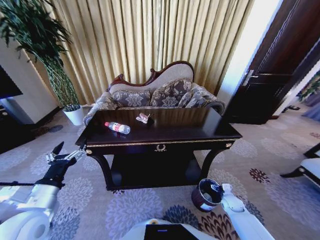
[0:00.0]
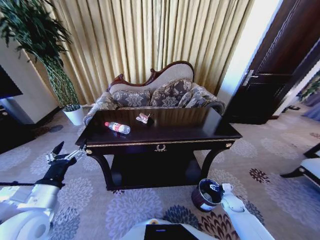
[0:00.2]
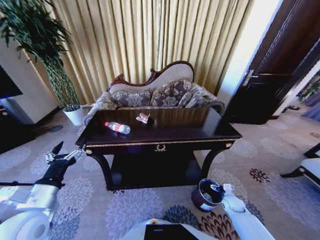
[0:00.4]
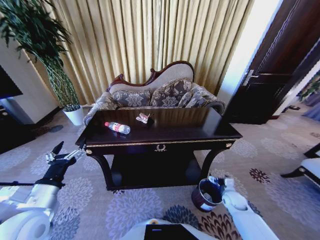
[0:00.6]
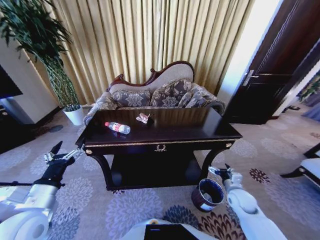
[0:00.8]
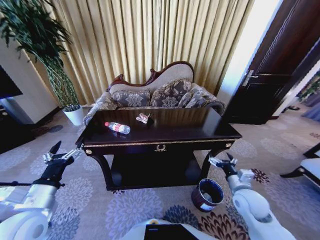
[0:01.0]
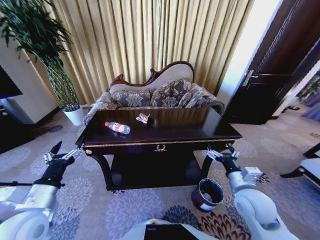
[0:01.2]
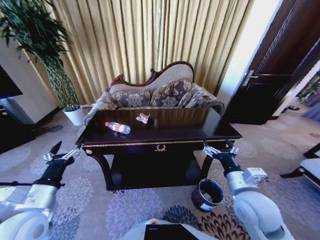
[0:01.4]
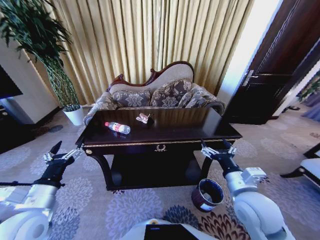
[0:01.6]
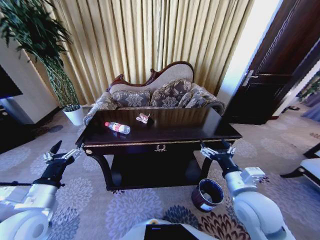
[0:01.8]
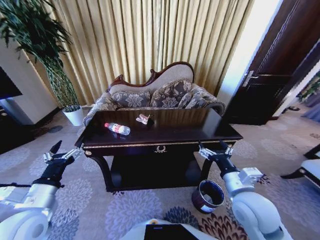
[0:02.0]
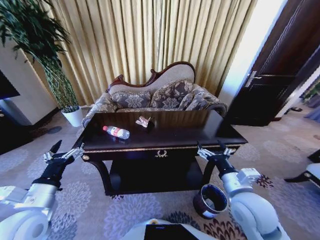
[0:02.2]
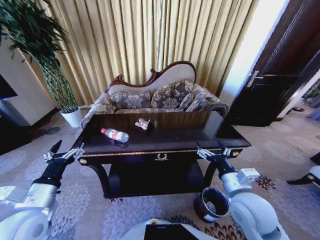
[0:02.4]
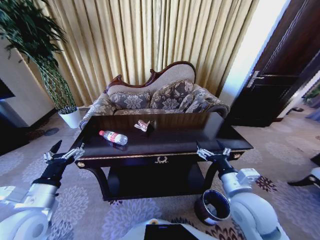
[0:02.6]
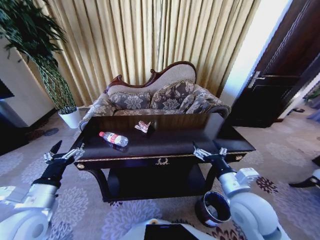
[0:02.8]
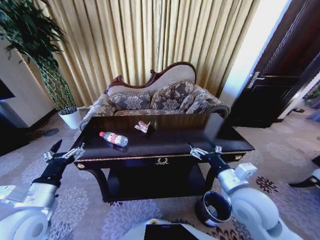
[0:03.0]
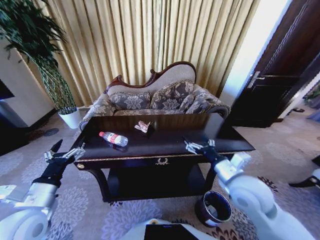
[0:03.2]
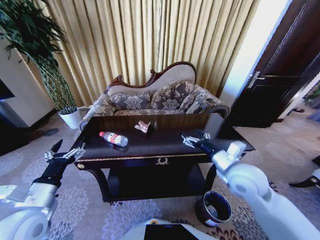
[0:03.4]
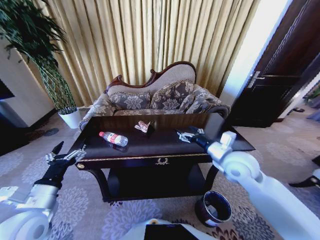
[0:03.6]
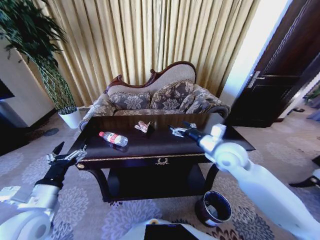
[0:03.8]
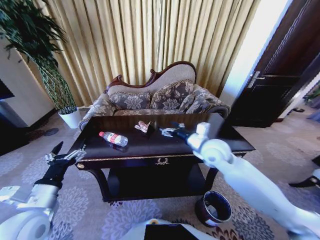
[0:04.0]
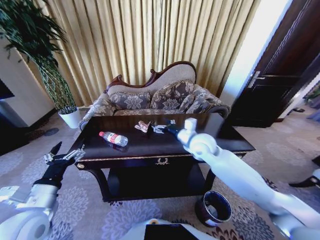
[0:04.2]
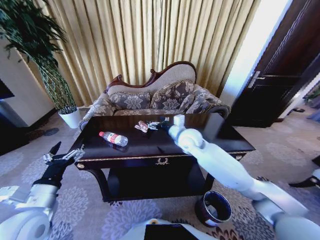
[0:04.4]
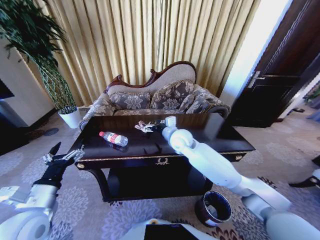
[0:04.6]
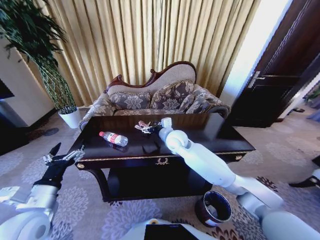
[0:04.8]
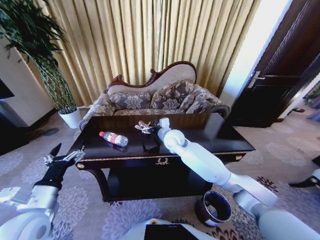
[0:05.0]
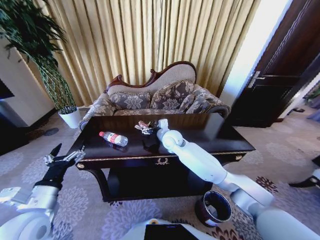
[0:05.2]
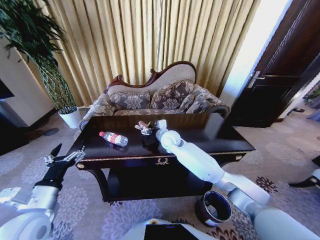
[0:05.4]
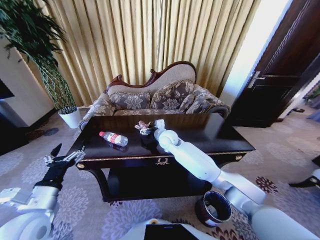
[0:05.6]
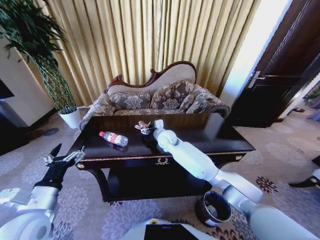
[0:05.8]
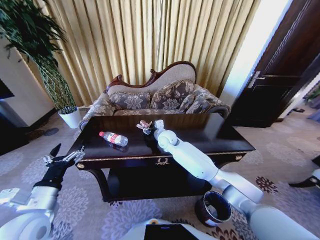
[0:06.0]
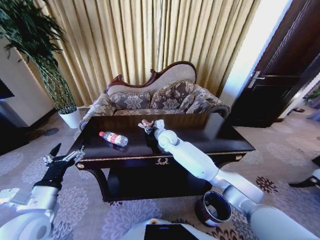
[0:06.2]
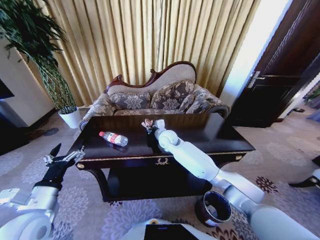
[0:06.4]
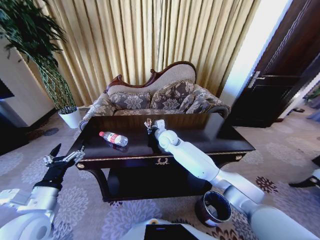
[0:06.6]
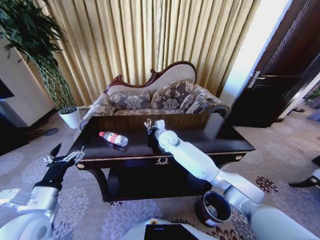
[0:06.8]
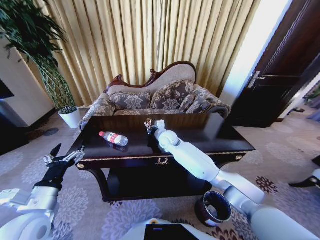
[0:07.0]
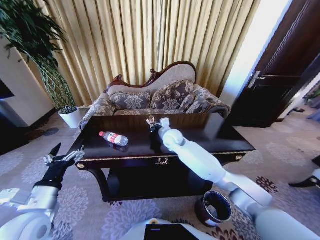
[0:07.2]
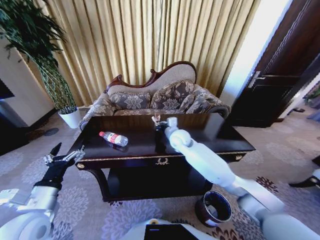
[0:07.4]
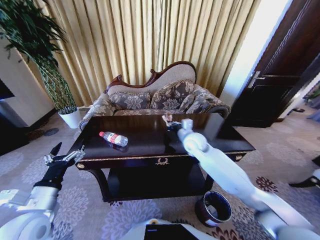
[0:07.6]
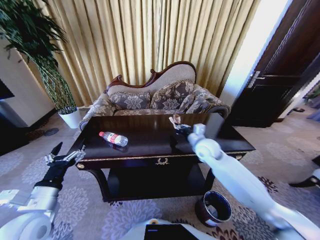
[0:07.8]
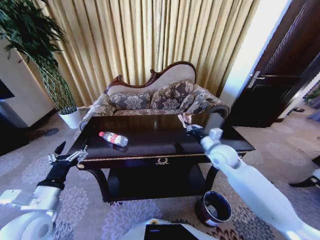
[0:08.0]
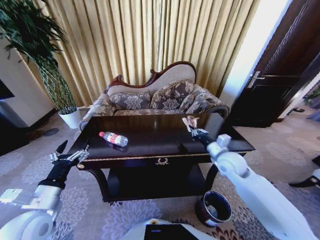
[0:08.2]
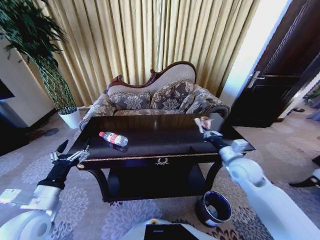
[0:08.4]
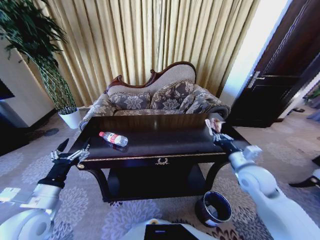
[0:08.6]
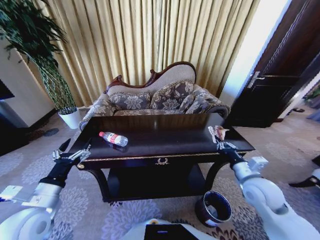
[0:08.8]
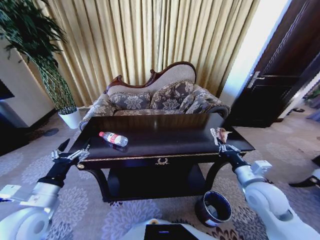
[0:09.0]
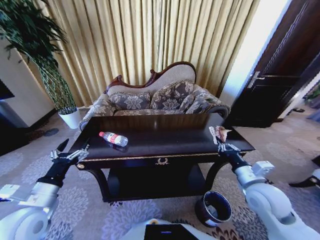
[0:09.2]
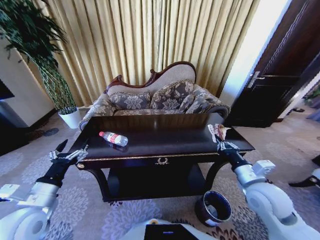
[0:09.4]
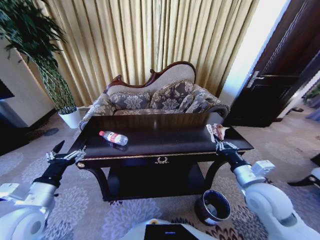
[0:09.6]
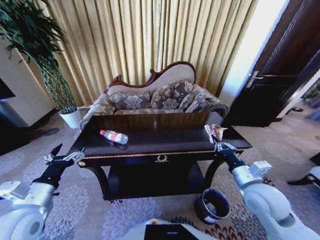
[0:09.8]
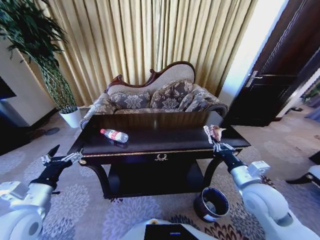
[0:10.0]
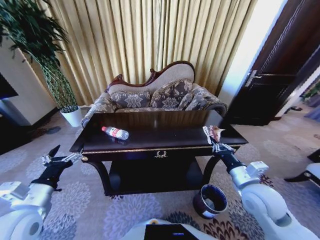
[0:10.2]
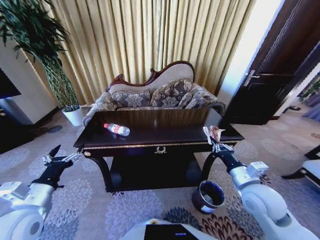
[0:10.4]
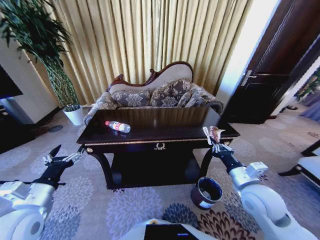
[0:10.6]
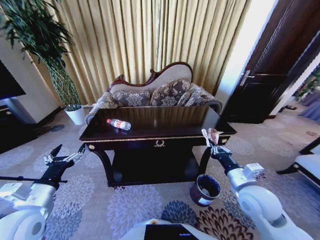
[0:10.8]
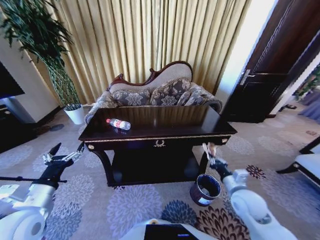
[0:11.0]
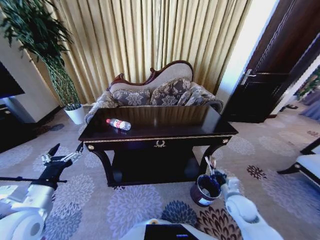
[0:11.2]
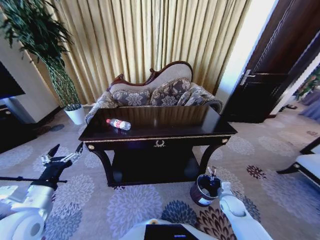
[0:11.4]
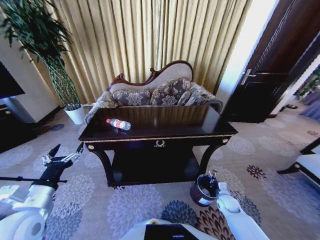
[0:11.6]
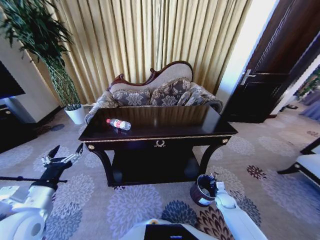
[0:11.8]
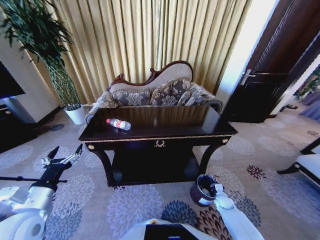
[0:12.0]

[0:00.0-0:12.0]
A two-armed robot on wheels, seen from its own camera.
Task of the whole recording: Move to the front of the table and place the trash on the table into the trash bin.
0:00.0 to 0:01.6: The right gripper shifts roughly 35 cm upward and to the left.
0:03.0 to 0:04.4: The right gripper heads forward and to the left, covering approximately 25 cm.
0:04.4 to 0:06.0: The right gripper is displaced to the left, downward and forward by approximately 15 cm.
0:06.0 to 0:07.6: The right gripper goes about 15 cm to the right and backward, and closes its fingers.
0:07.6 to 0:09.0: The right gripper moves backward and to the right, about 25 cm.
0:10.4 to 0:12.0: The right gripper travels downward by approximately 35 cm.

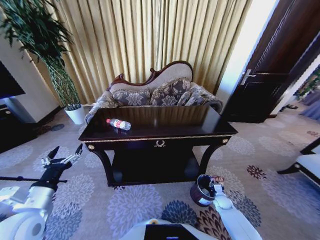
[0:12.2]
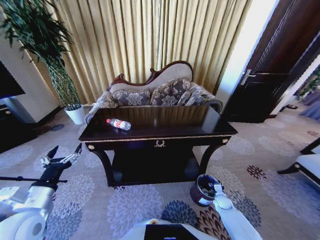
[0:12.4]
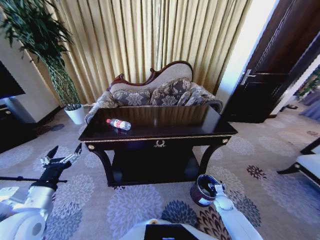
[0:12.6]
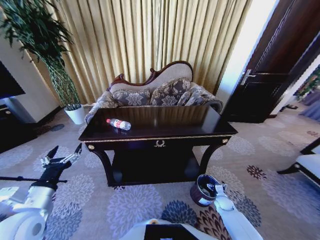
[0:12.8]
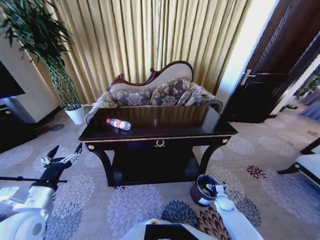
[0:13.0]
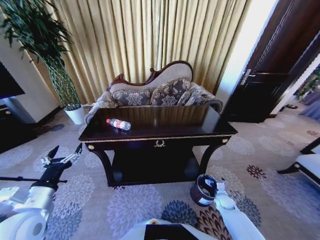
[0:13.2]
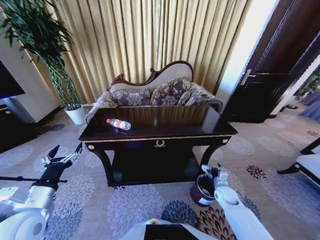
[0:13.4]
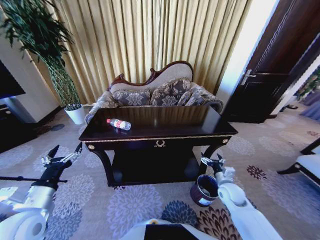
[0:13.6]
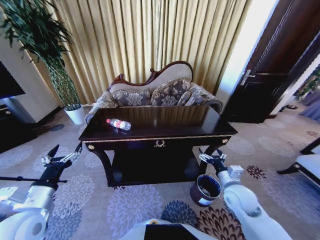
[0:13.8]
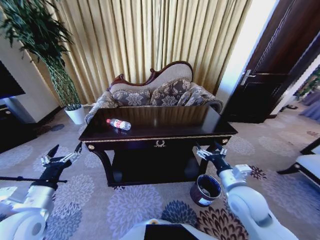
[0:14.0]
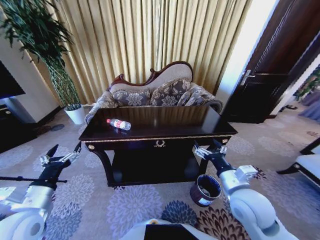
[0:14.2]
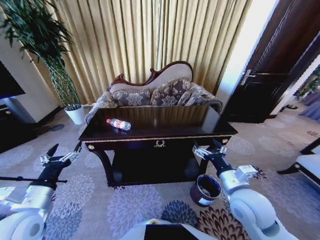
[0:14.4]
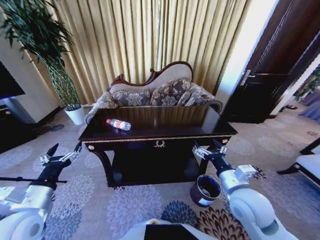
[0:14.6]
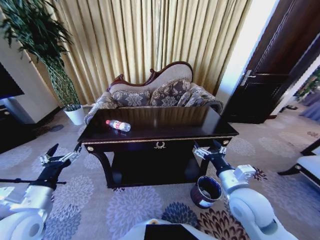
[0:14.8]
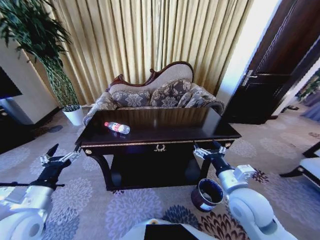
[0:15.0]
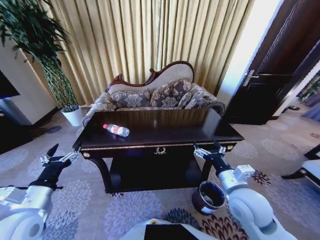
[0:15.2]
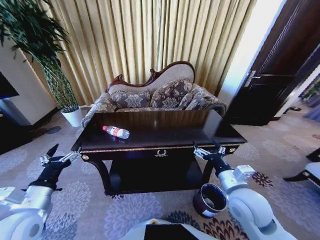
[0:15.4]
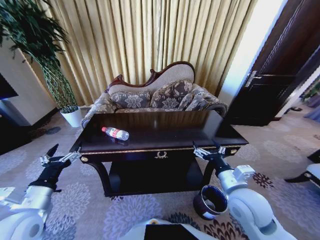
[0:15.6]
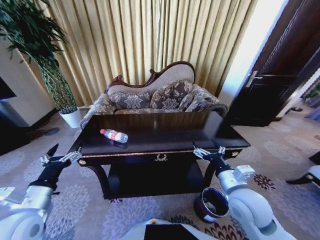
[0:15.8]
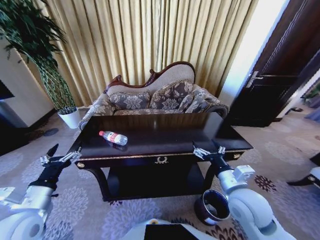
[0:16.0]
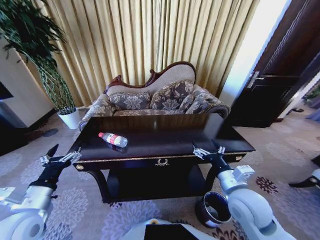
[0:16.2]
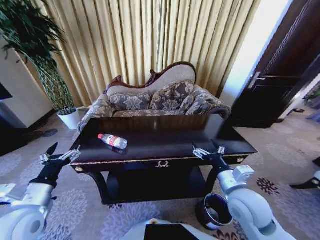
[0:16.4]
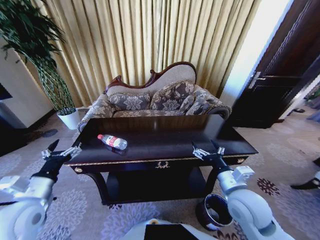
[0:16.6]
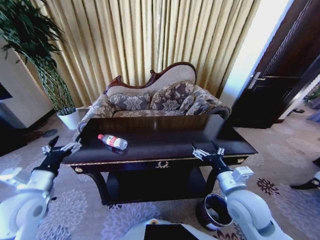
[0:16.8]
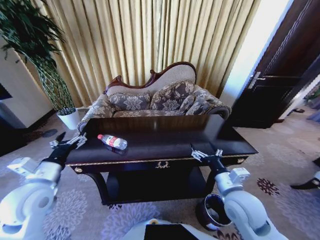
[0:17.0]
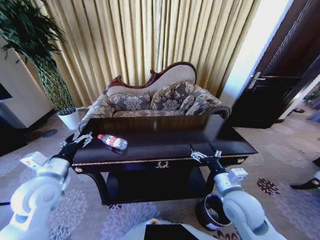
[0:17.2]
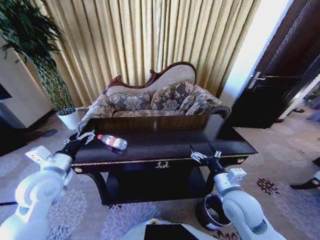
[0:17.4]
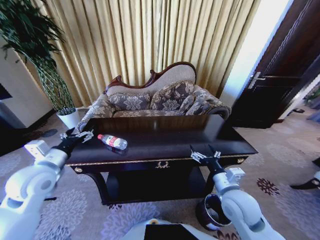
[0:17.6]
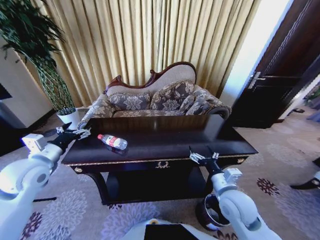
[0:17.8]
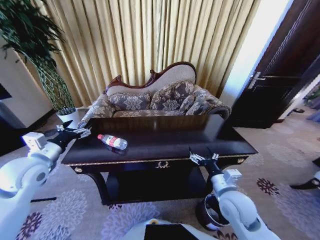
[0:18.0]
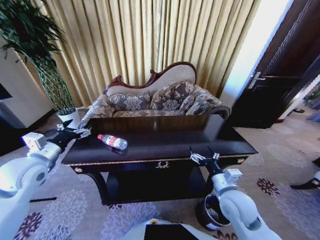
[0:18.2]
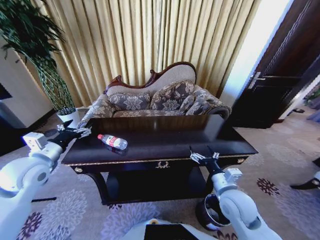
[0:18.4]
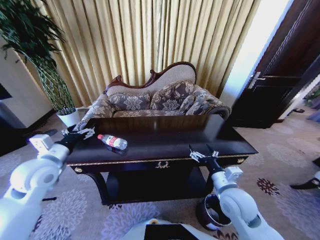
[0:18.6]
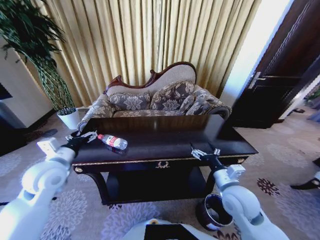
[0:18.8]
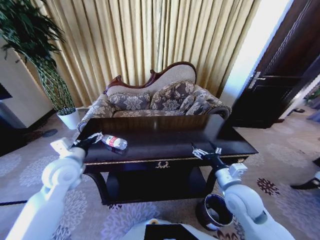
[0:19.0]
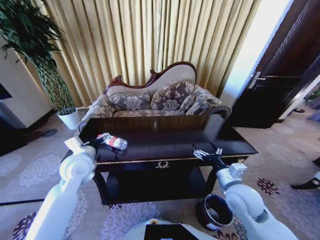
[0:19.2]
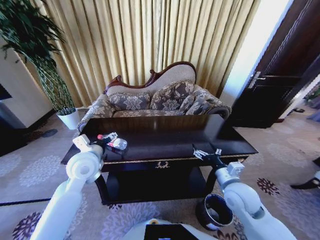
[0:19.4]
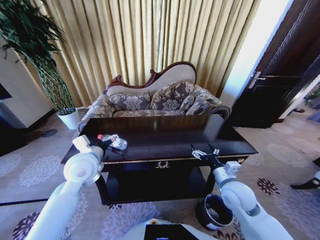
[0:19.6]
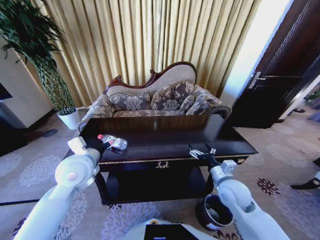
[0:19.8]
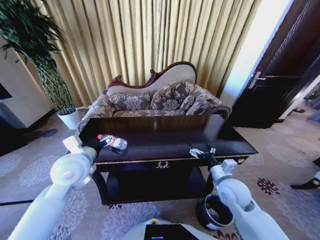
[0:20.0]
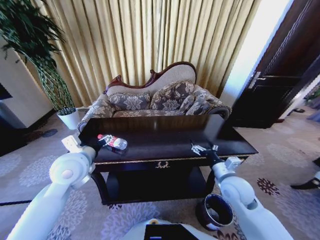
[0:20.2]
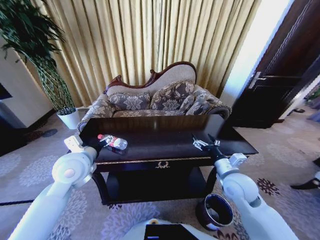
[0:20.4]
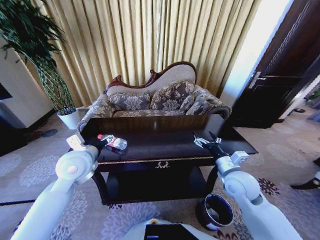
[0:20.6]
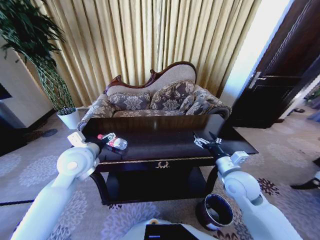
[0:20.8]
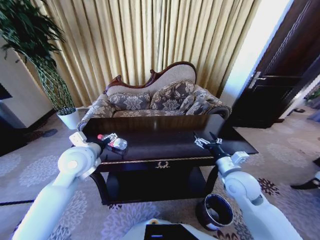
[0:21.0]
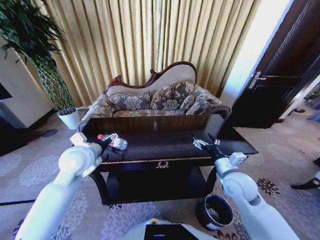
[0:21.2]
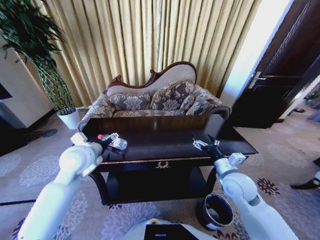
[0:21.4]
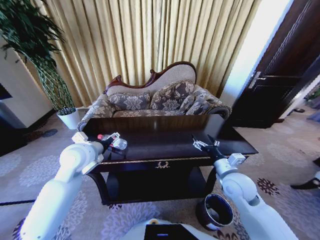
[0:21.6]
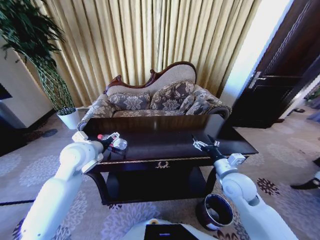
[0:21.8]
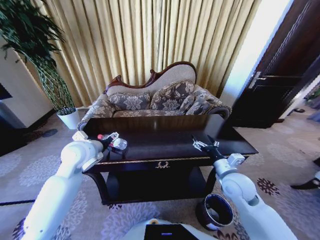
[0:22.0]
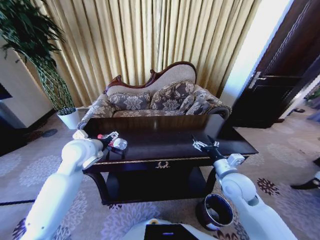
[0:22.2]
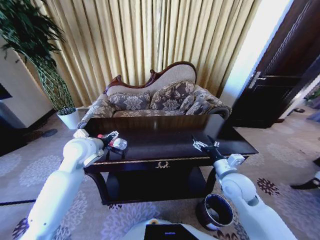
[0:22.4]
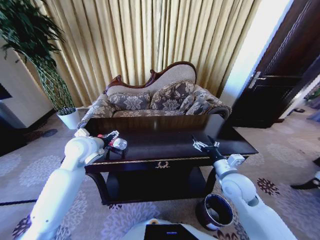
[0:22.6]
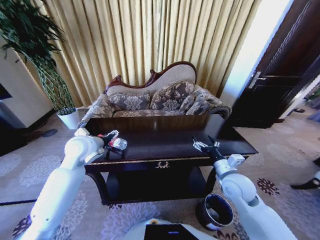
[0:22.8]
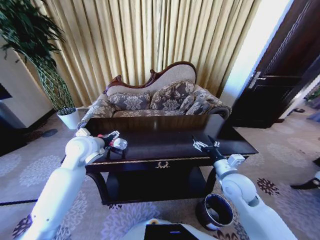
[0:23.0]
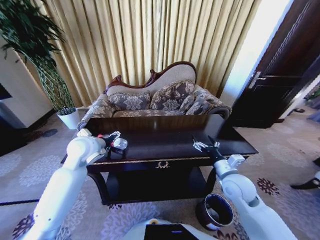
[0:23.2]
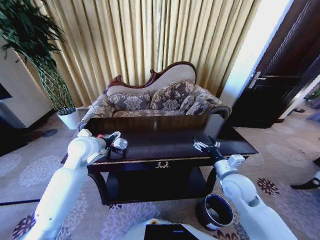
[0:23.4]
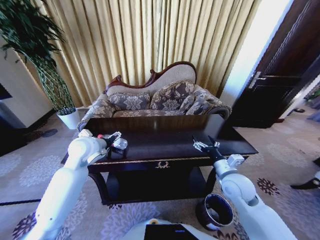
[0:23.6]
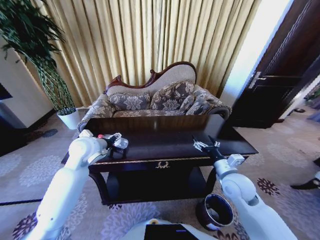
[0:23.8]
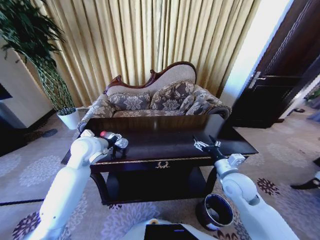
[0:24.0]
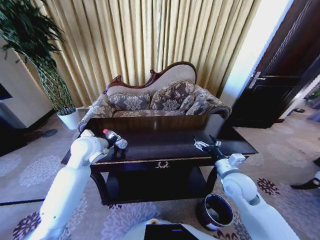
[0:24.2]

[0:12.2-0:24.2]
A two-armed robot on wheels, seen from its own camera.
Task of the whole recording: Move to the front of the table and place the trash on the table into the trash bin.
0:12.2 to 0:13.8: The right gripper travels upward by some 30 cm, and opens its fingers.
0:13.8 to 0:15.2: The right gripper heads upward, covering approximately 10 cm.
0:16.6 to 0:18.2: The left gripper shifts about 10 cm forward and upward.
0:18.2 to 0:19.8: The left gripper moves to the right, about 15 cm.
0:19.8 to 0:21.2: The grippers make only small movements.
0:21.2 to 0:22.6: The grippers move only a little.
0:22.6 to 0:24.2: The left gripper closes up.
